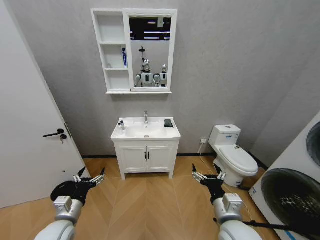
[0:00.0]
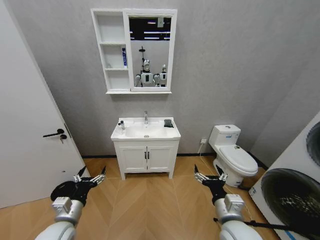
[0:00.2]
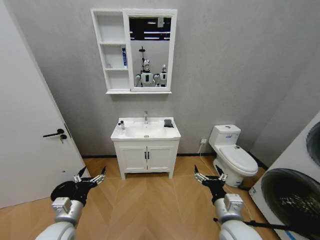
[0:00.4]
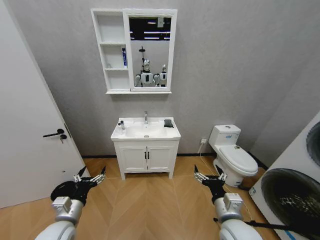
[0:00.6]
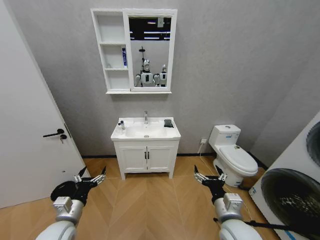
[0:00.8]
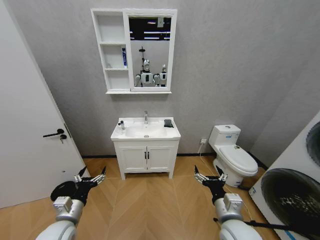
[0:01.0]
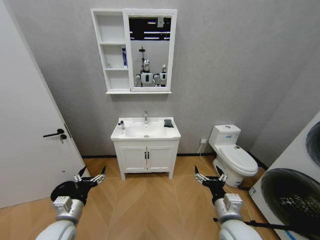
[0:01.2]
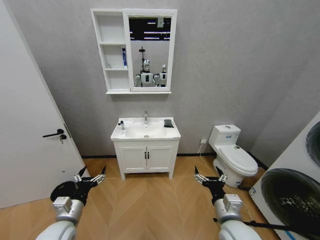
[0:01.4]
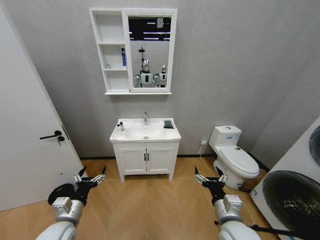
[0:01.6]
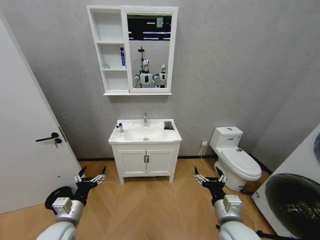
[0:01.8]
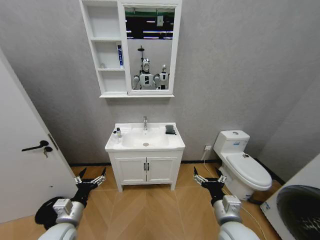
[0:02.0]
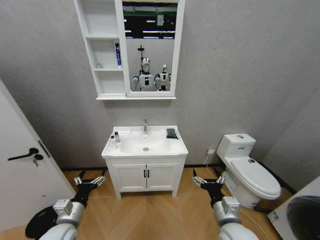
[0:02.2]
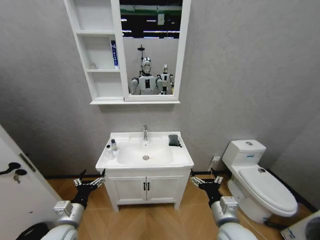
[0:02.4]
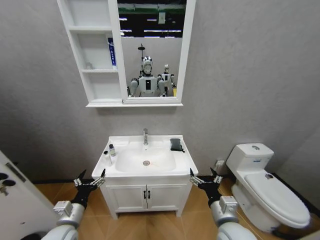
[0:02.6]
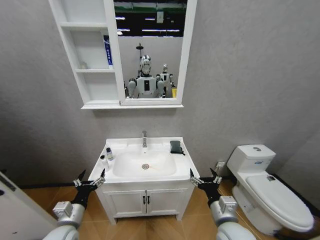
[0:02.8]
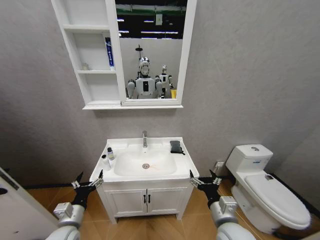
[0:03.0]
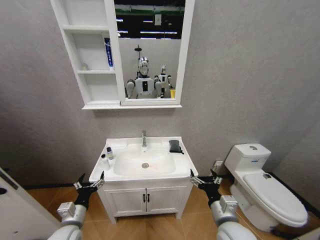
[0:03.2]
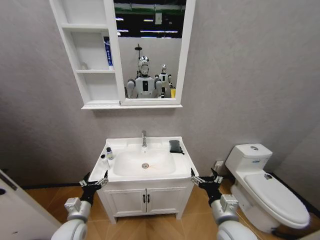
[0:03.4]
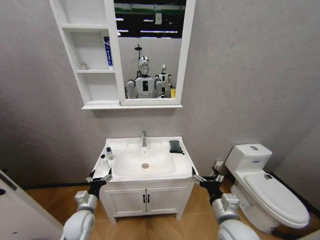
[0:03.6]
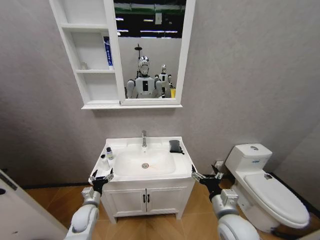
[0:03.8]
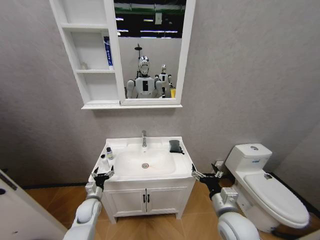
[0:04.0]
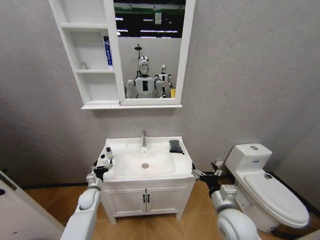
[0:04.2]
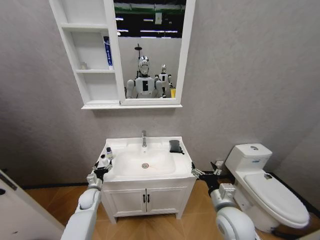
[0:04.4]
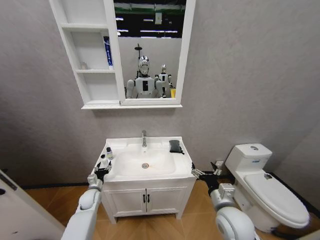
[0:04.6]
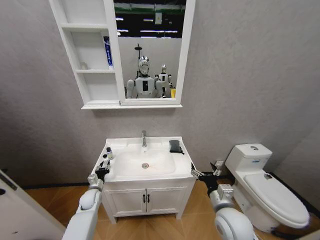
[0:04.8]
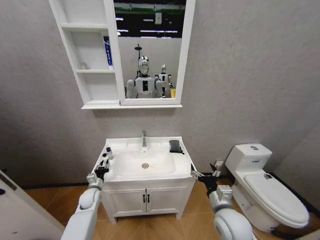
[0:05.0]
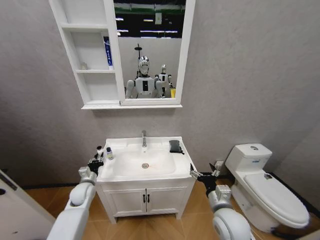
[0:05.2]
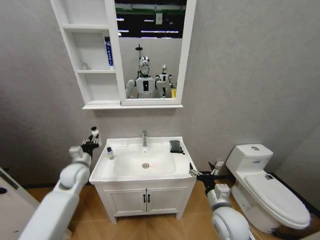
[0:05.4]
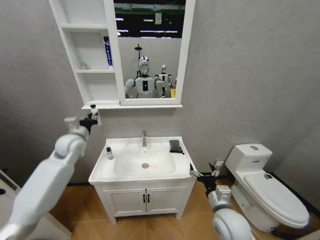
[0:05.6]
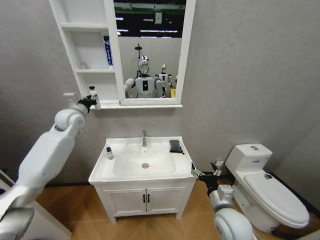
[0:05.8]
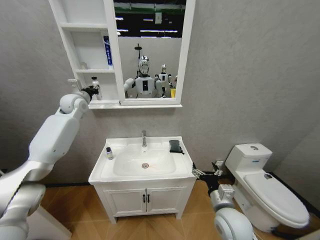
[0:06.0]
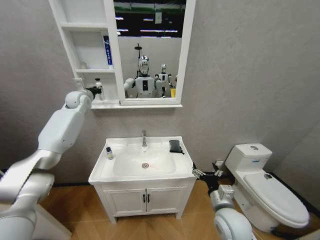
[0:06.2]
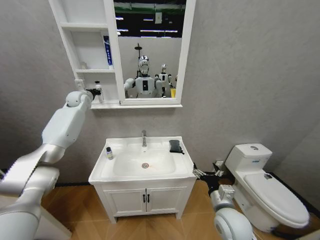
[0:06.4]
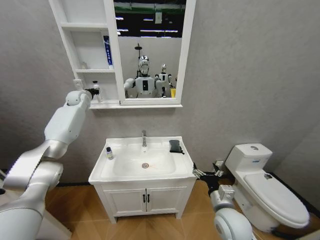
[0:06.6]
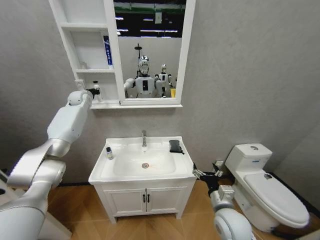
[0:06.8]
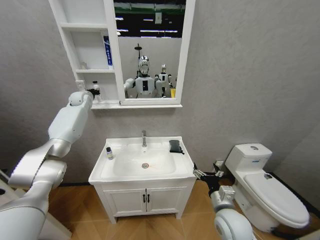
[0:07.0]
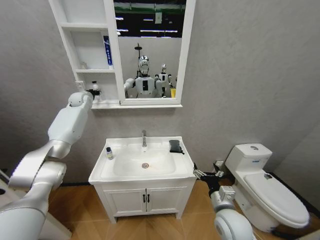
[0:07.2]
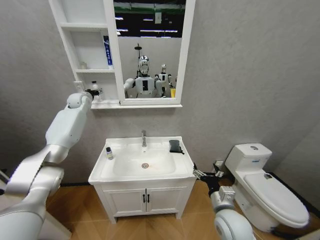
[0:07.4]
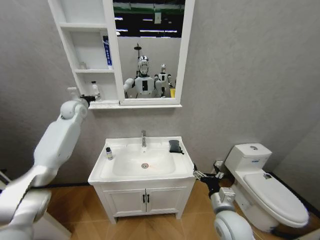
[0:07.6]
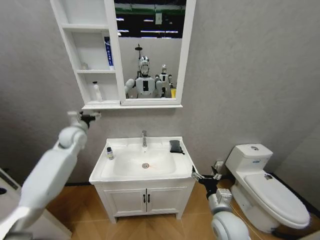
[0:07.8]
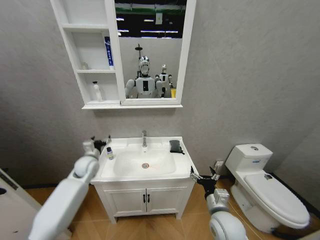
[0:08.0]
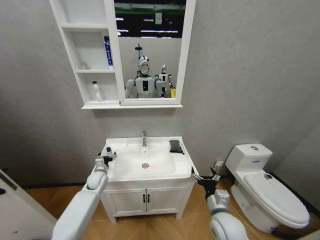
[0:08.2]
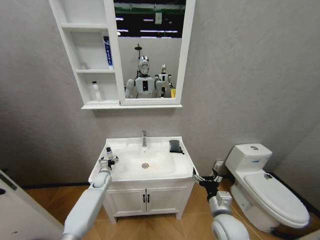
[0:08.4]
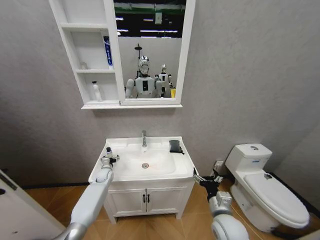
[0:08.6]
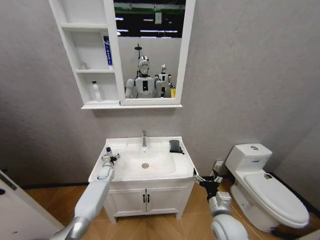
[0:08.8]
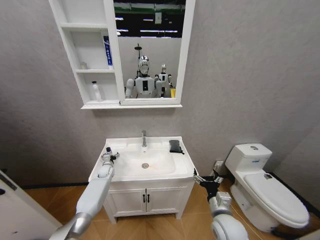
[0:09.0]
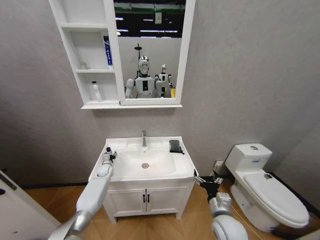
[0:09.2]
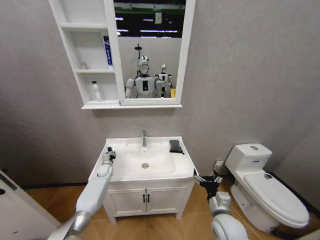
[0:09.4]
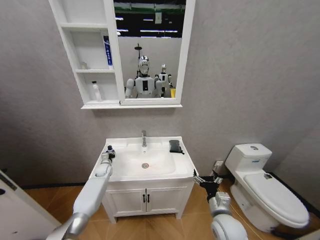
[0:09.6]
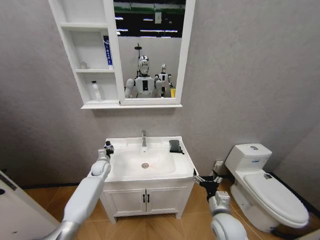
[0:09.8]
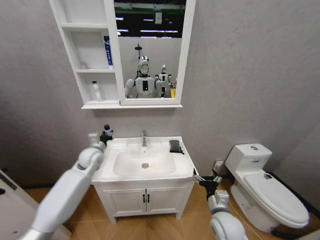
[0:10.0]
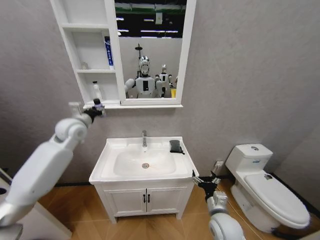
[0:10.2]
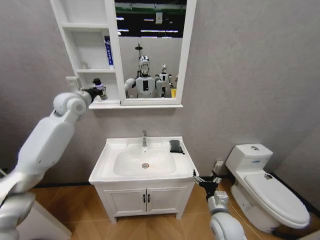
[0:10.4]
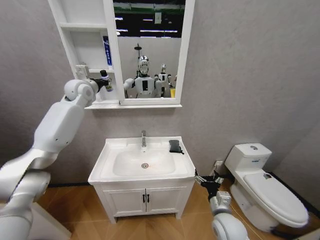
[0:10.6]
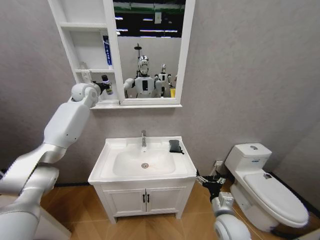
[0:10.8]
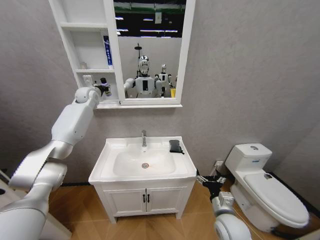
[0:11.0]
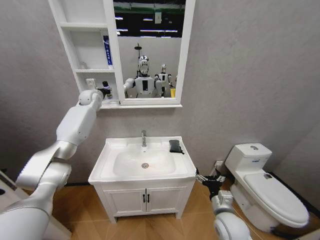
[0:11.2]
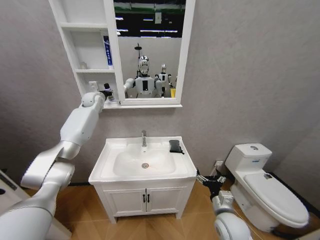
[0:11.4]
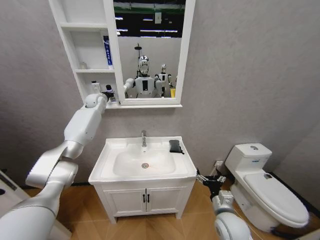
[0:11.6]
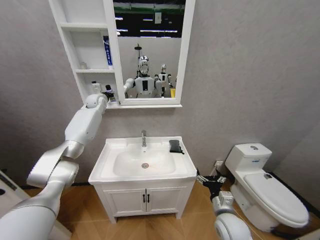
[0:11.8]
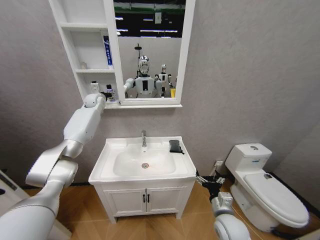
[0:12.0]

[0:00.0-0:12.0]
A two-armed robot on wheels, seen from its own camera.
Task of the whole recording: Move facial cleanser and shampoo from washbasin to cabinet, then wipe washbasin with towel.
0:03.0 to 0:04.4: The left gripper heads forward and downward, covering approximately 20 cm.
0:04.4 to 0:06.0: The left gripper goes approximately 50 cm upward and forward, and closes.
0:06.0 to 0:07.6: The left gripper travels forward and back again, about 10 cm each way, and opens.
0:07.6 to 0:09.0: The left gripper is displaced downward by some 40 cm.
0:09.0 to 0:10.4: The left gripper goes about 40 cm upward, and closes up.
0:10.4 to 0:12.0: The left gripper is displaced forward by some 15 cm.

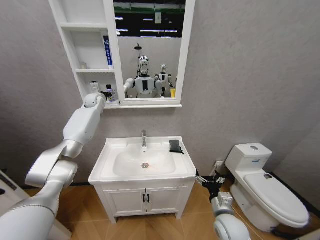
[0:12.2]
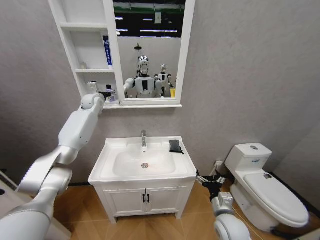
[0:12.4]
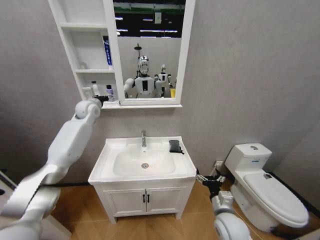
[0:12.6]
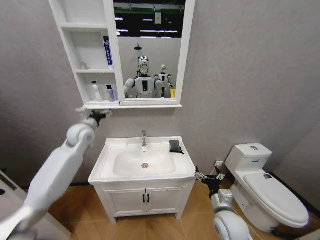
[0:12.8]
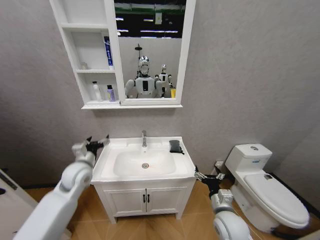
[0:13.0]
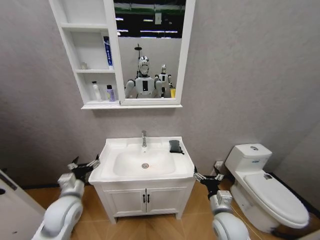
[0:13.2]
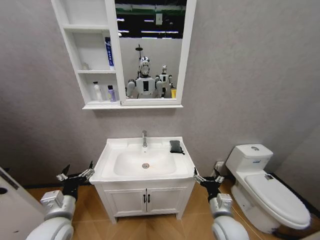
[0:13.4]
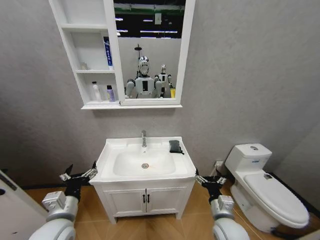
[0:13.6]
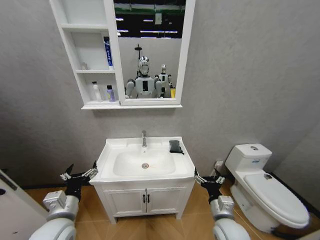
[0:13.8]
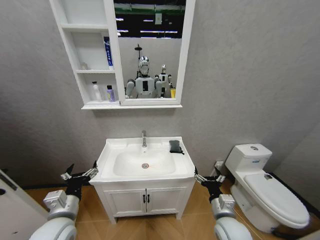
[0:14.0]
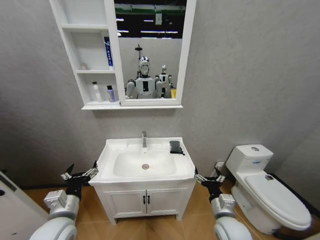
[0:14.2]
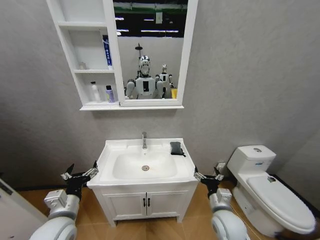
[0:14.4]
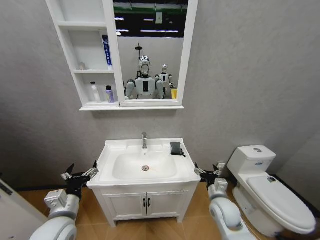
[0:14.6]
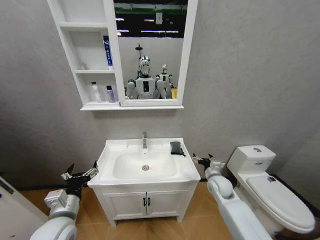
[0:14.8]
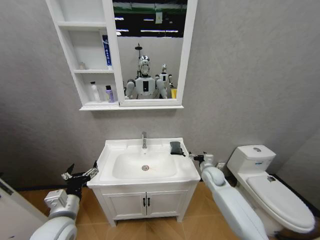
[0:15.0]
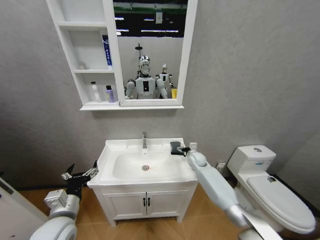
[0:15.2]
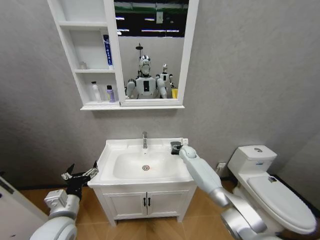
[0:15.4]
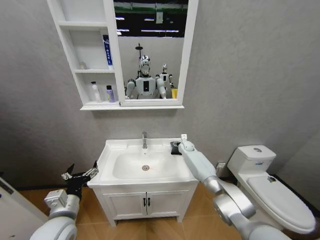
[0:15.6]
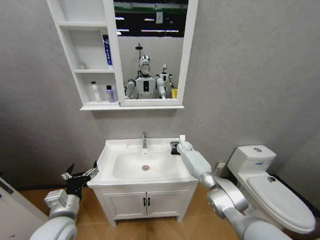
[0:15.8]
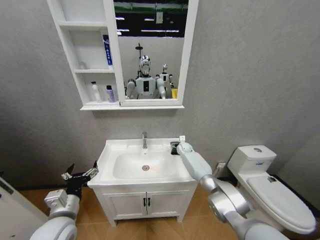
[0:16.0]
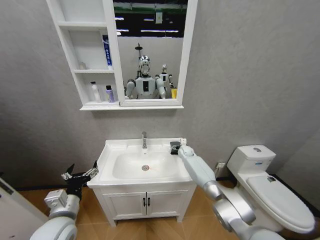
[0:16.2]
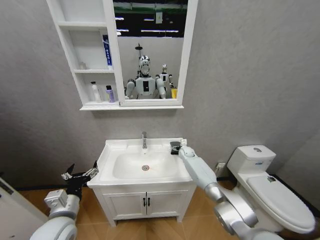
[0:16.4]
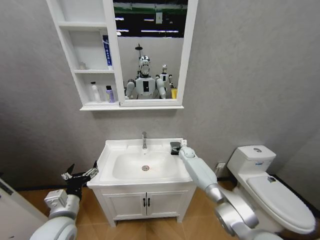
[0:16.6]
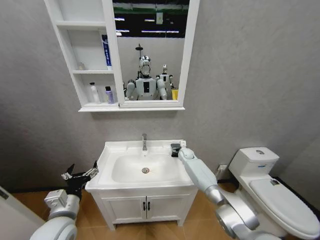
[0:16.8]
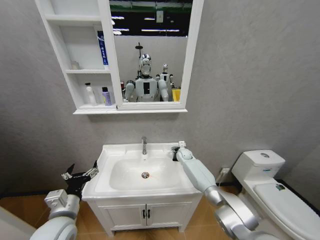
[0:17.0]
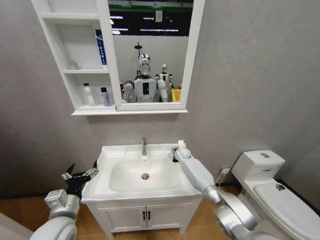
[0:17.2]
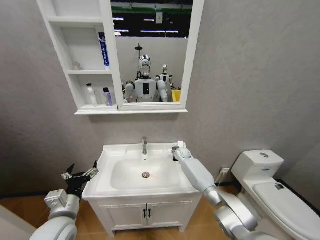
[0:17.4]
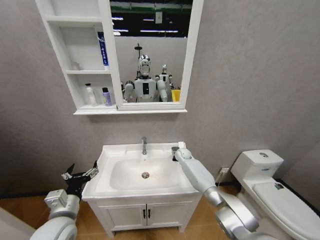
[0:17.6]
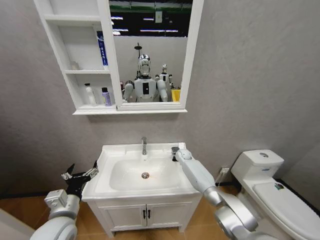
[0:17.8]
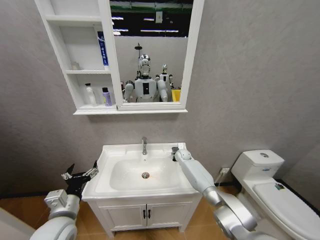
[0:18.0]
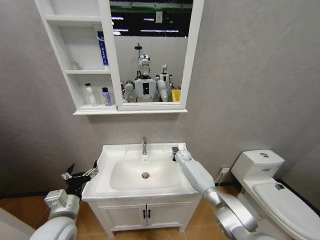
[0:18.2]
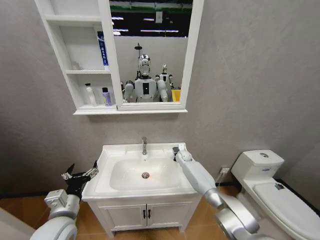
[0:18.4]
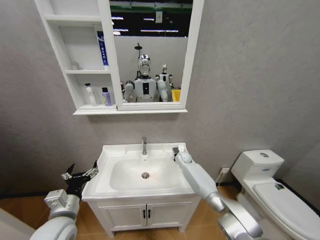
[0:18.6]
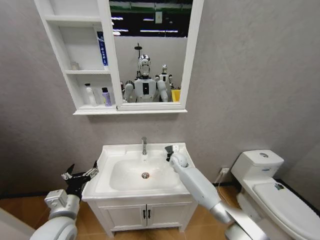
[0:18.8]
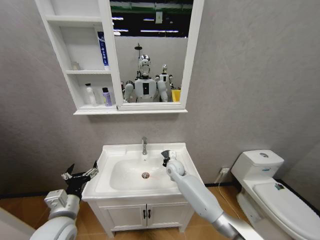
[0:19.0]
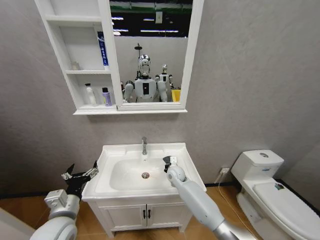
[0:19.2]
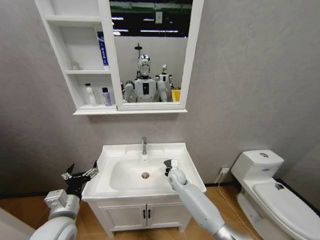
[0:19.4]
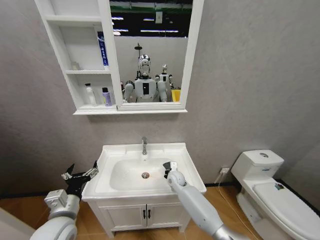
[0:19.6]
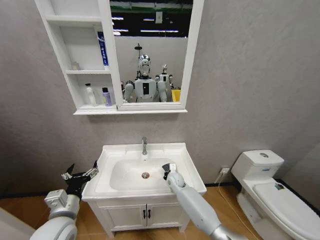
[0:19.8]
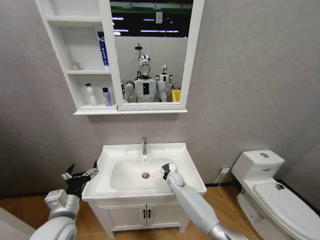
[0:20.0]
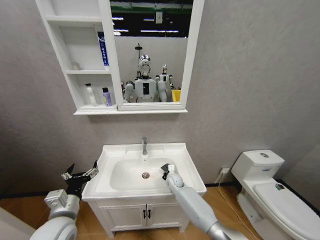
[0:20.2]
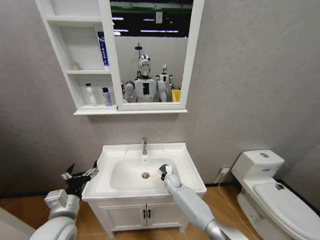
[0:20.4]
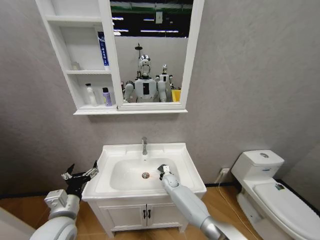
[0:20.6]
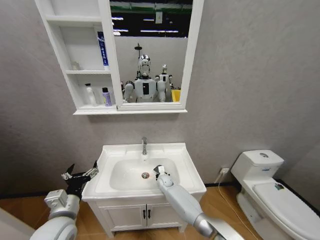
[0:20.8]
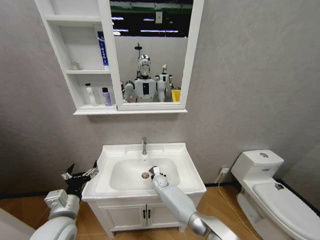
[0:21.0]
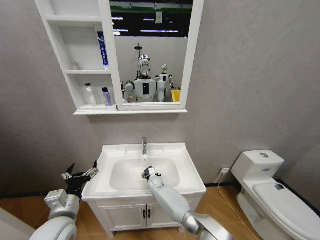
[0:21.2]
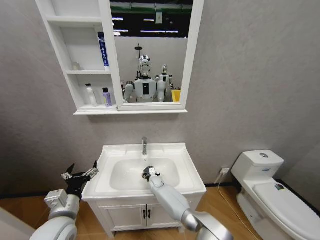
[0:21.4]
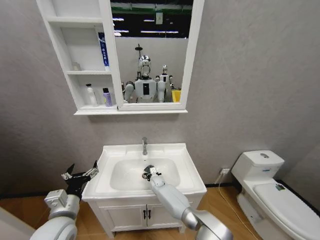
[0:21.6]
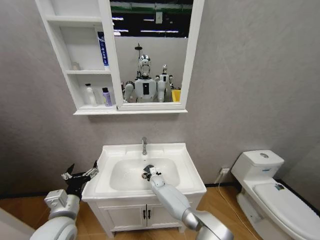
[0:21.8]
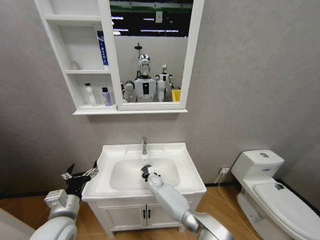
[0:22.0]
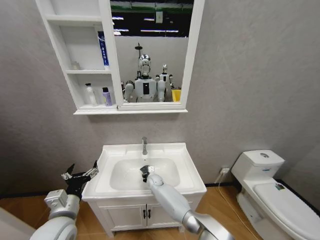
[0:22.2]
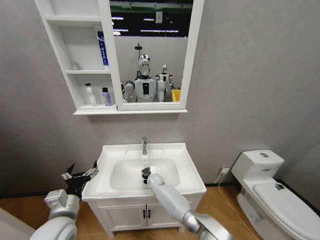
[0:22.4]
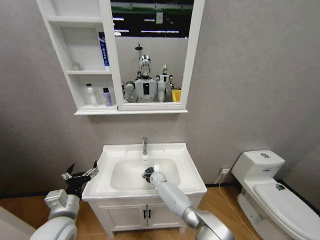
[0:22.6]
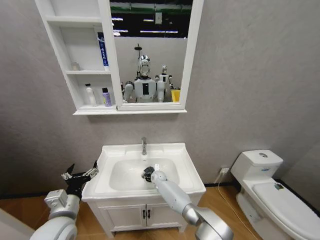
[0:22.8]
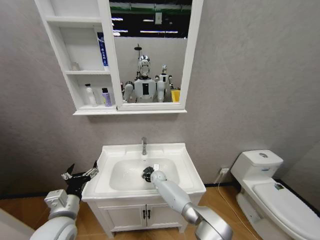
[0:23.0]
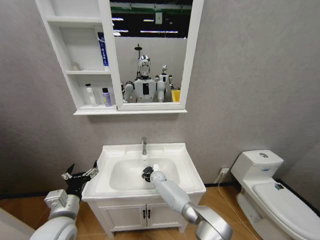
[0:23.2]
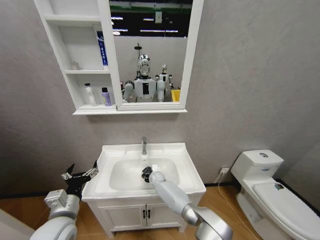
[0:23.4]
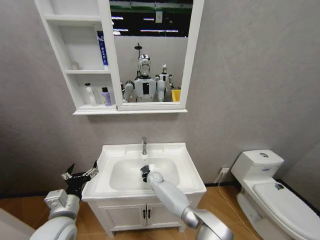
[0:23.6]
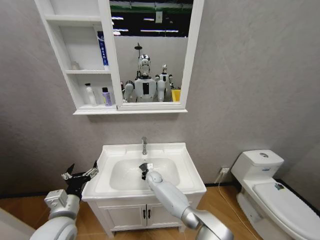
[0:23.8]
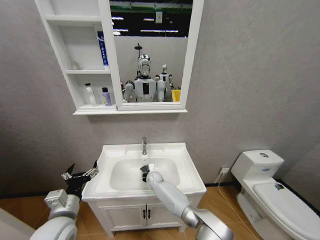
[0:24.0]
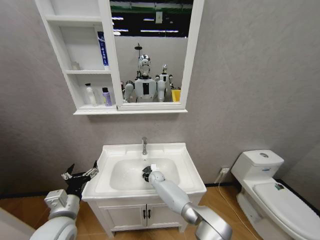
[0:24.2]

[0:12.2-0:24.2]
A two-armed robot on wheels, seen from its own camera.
Task of the whole recording: Move facial cleanser and shampoo from washbasin to cabinet, then wipe washbasin with towel.
0:12.2 to 0:13.8: The left gripper goes some 50 cm backward and downward.
0:13.8 to 0:15.2: The right gripper moves forward, some 35 cm.
0:15.2 to 0:16.6: The right gripper is displaced forward by approximately 5 cm.
0:18.2 to 0:19.8: The right gripper is displaced backward and to the left by approximately 15 cm, and closes up.
0:19.8 to 0:21.2: The right gripper heads to the left and downward, covering approximately 15 cm.
0:21.2 to 0:22.6: The grippers move only a little.
0:22.6 to 0:24.2: There are only small adjustments of the grippers.
